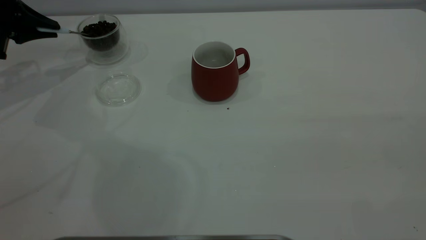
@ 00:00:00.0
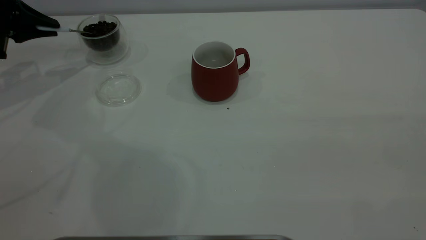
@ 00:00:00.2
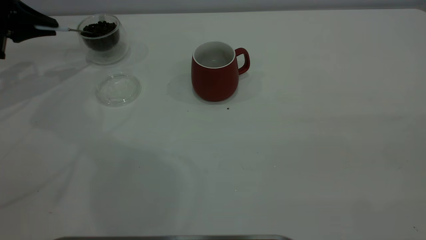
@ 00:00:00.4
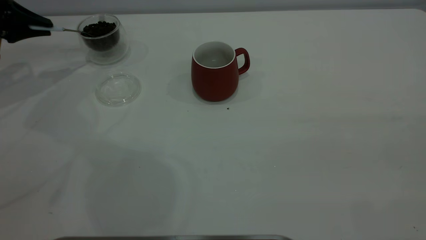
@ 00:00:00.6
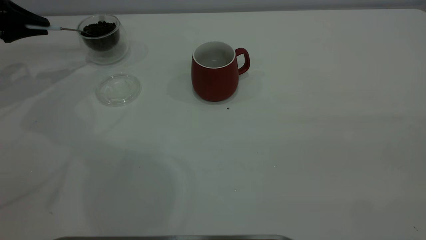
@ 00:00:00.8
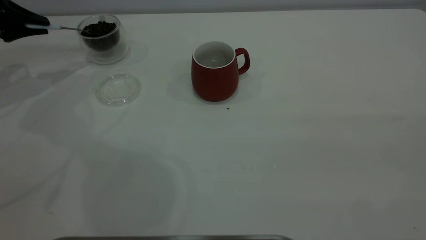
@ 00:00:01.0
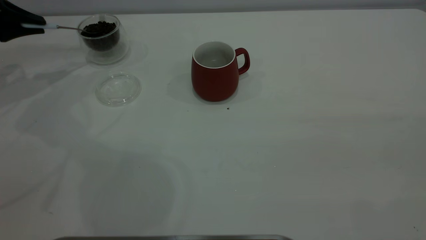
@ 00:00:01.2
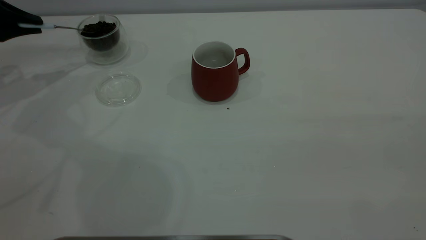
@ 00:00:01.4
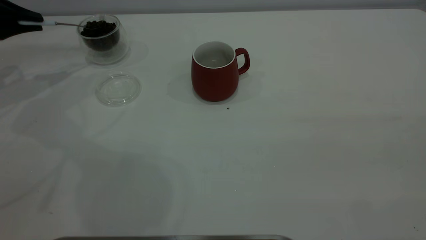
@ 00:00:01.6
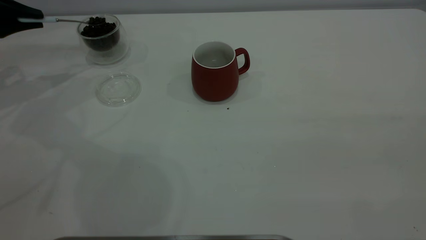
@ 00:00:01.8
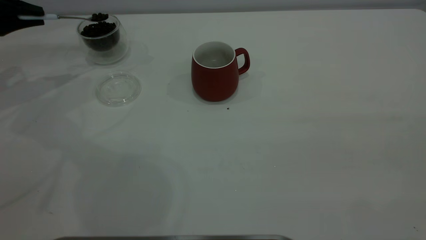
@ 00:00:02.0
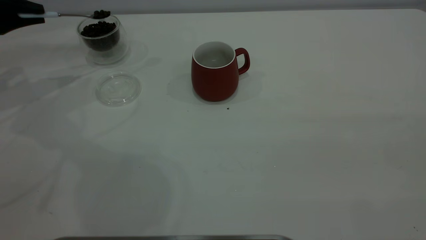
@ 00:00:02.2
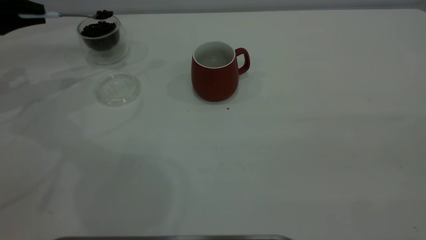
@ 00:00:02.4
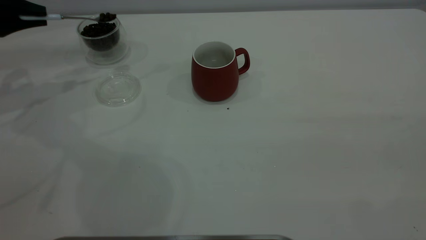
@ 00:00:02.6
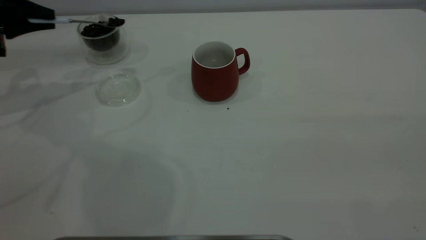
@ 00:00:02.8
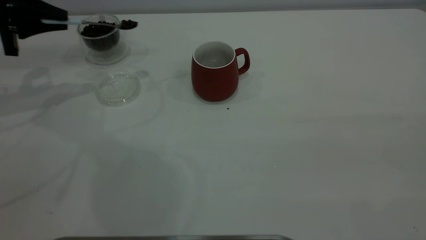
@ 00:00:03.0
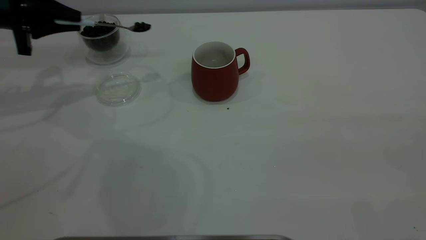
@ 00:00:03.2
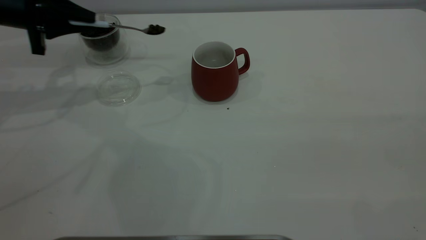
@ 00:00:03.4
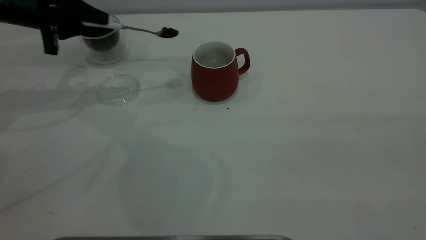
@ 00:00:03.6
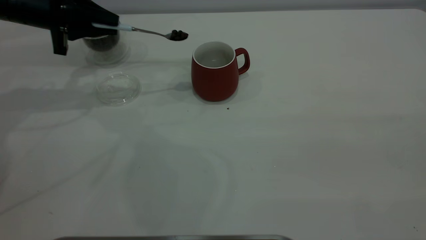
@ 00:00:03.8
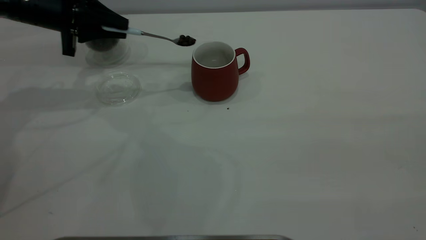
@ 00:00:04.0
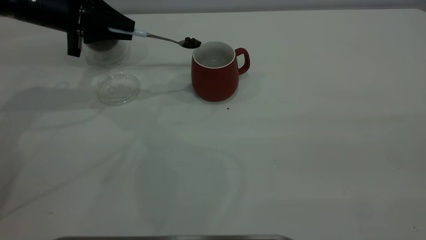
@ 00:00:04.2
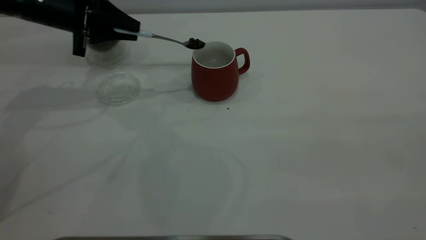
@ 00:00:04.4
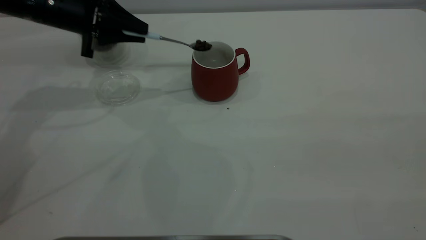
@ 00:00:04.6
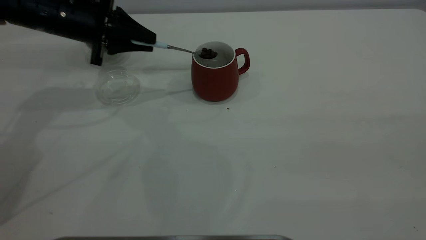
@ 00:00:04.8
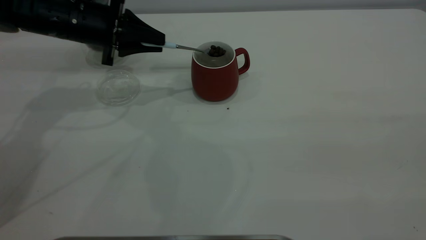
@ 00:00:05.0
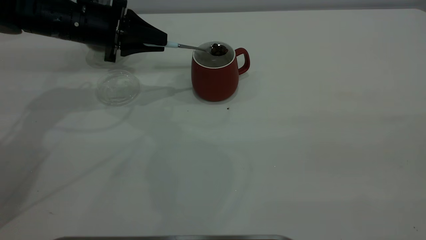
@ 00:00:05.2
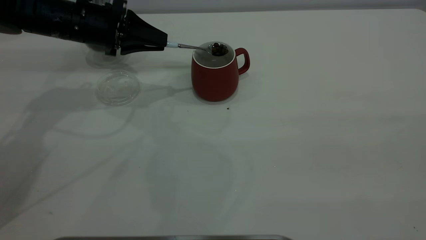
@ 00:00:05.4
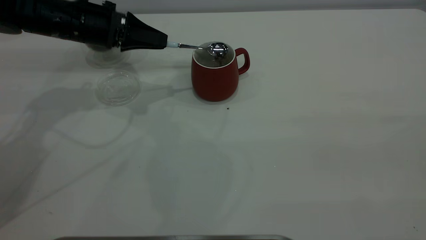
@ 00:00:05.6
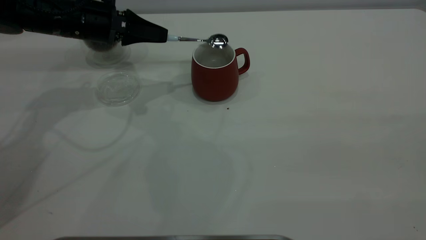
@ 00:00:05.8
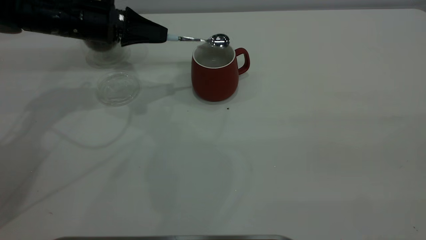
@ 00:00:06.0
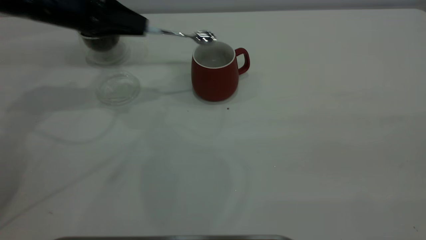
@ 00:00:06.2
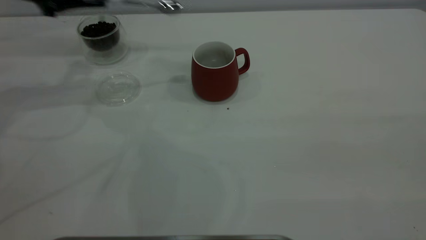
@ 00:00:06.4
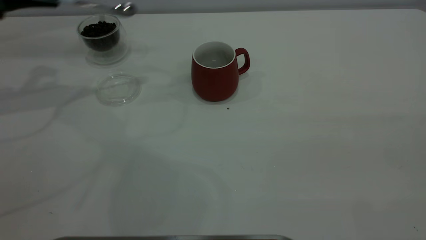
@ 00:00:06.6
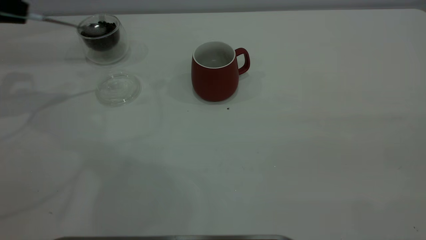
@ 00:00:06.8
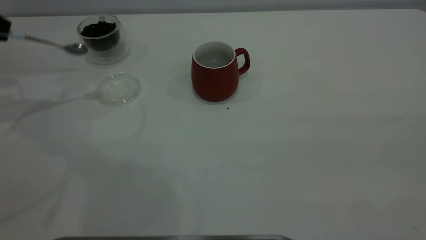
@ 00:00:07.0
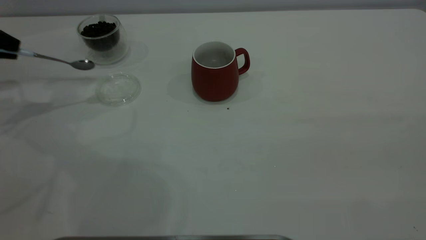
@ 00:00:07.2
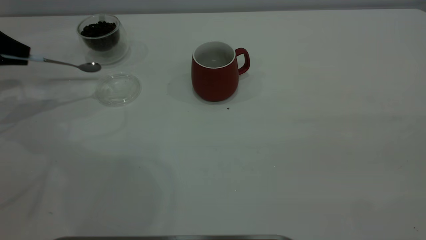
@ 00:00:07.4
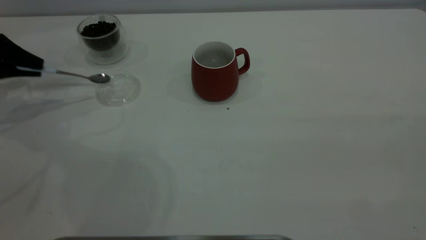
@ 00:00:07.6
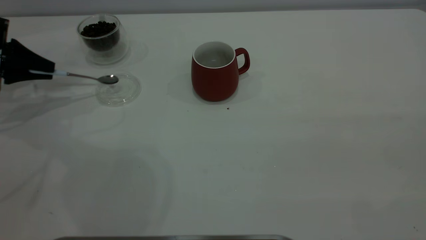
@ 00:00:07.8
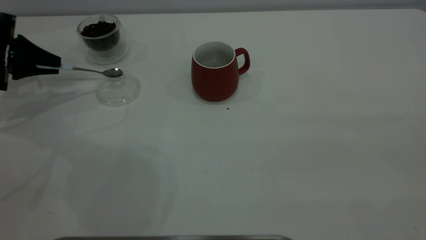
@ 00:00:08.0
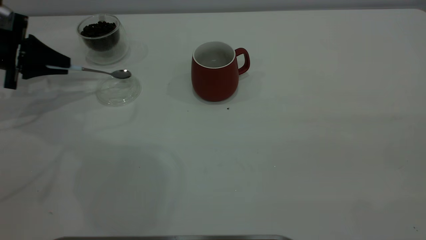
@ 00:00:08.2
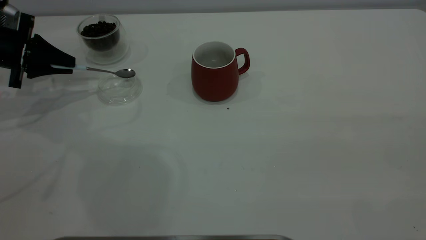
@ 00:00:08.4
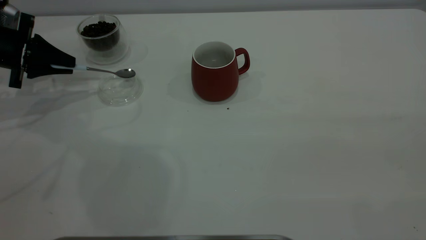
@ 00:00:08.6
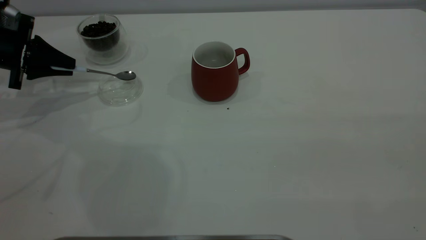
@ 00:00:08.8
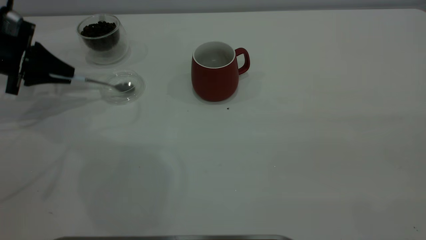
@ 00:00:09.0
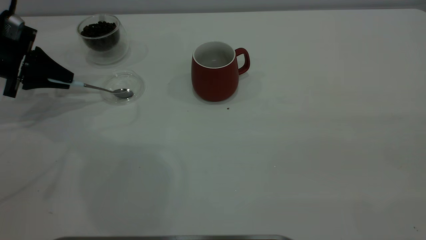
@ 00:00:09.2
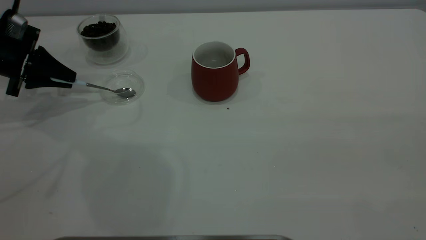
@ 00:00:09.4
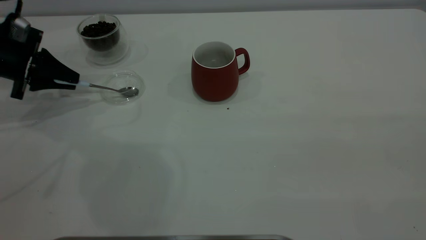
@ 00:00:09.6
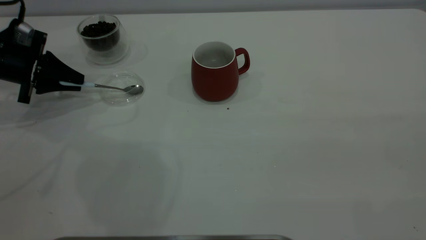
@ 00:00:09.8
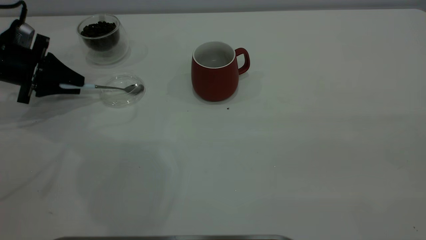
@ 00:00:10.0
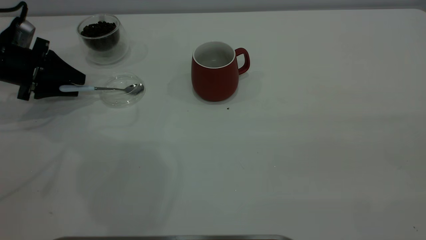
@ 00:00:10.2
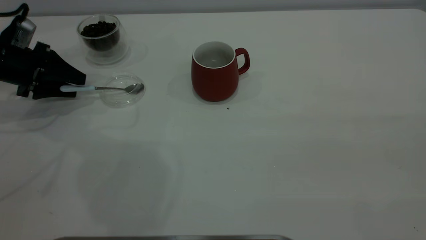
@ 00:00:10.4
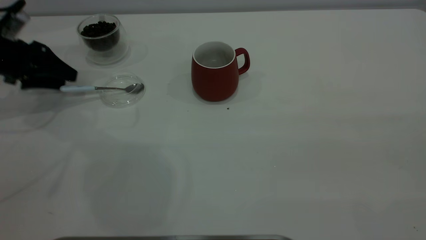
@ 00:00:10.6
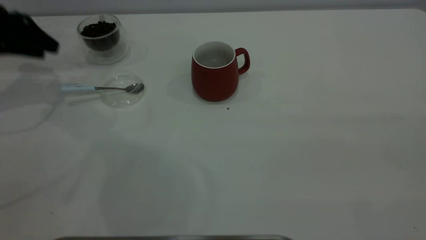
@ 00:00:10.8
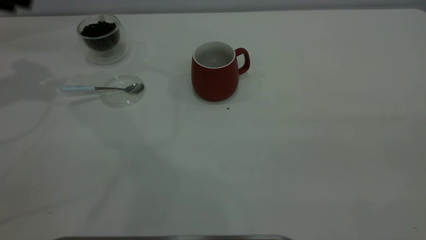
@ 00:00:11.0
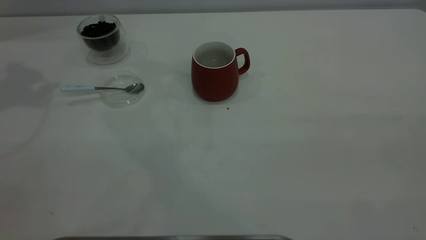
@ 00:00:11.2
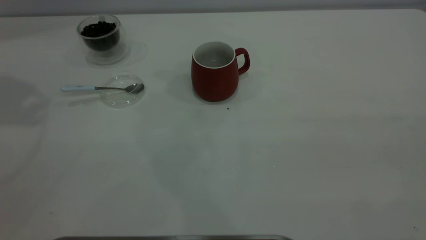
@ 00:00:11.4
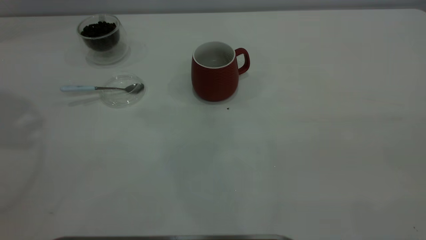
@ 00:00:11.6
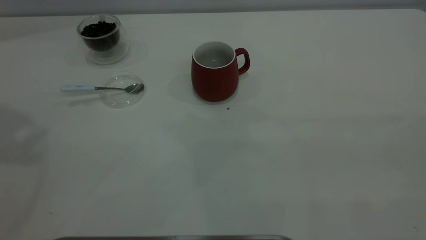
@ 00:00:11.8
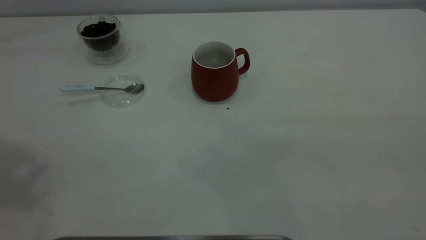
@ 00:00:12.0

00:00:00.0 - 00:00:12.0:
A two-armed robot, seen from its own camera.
Task of the whole recording: the right gripper place the red cup in the center of the table, the left gripper take the blue spoon from the cup lid and scoop out the coffee beans from the coffee cup and put them into the red cup, the left gripper put the spoon back into the cup lid.
Step, 00:00:00.0 - 00:00:06.2: Scoop a spoonful of beans into the cup.
Step, 00:00:06.4 - 00:00:10.6: Place the spoon back in its original place.
00:00:00.0 - 00:00:01.6: The grippers make only small movements.
00:00:01.6 - 00:00:03.0: The left gripper heads to the right, covering some 5 cm.
00:00:03.0 - 00:00:04.4: The left gripper goes approximately 10 cm to the right.
00:00:06.0 - 00:00:07.6: The left gripper is displaced to the left by about 20 cm.
00:00:07.6 - 00:00:09.0: The grippers stay close to where they were, moving slightly.
00:00:09.0 - 00:00:10.4: The left gripper opens.
00:00:10.4 - 00:00:12.0: The left gripper moves upward and backward, some 50 cm.

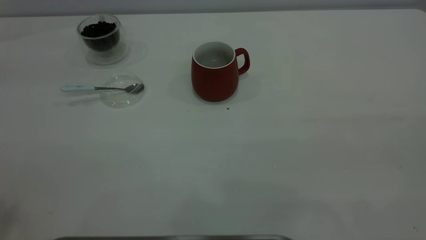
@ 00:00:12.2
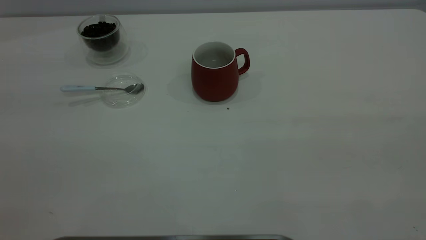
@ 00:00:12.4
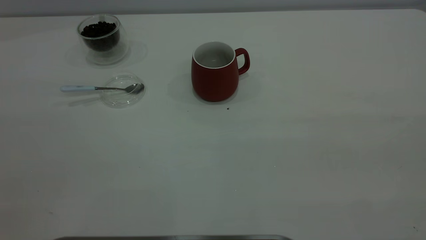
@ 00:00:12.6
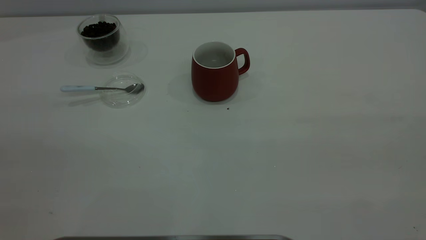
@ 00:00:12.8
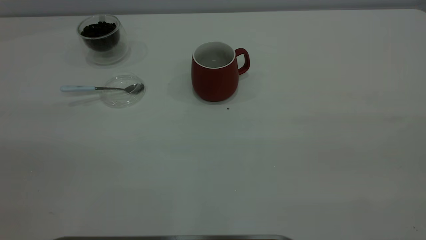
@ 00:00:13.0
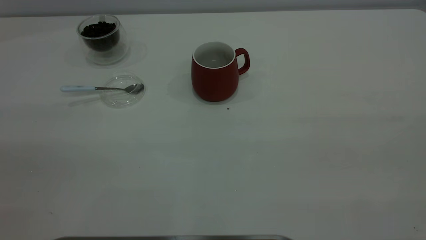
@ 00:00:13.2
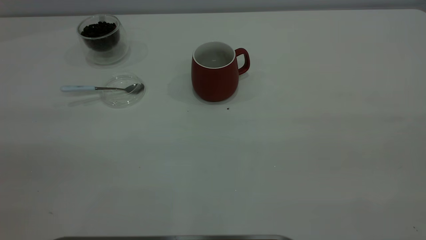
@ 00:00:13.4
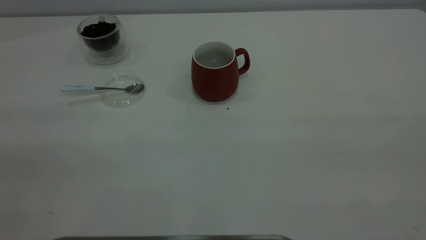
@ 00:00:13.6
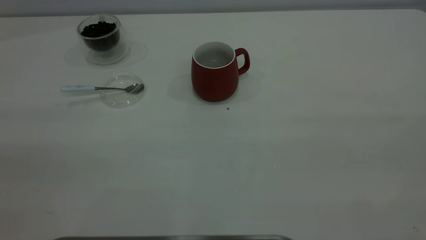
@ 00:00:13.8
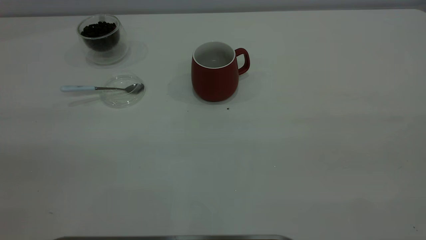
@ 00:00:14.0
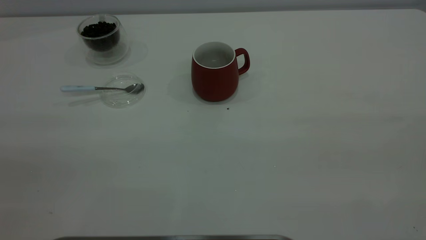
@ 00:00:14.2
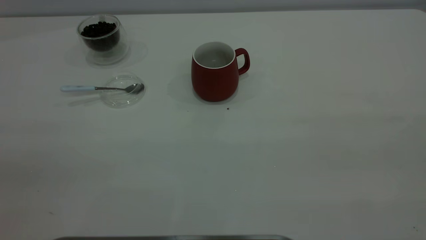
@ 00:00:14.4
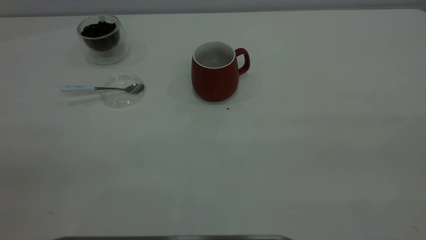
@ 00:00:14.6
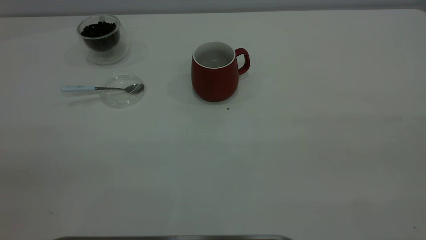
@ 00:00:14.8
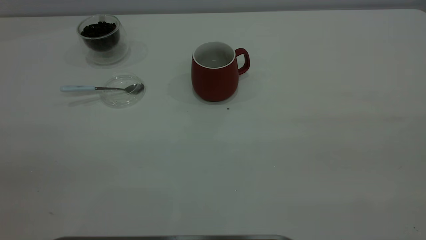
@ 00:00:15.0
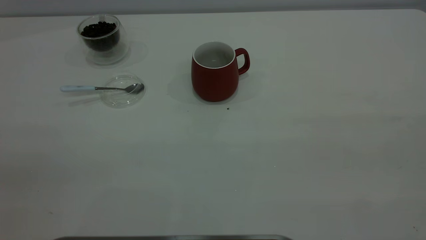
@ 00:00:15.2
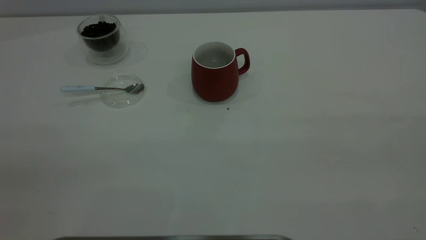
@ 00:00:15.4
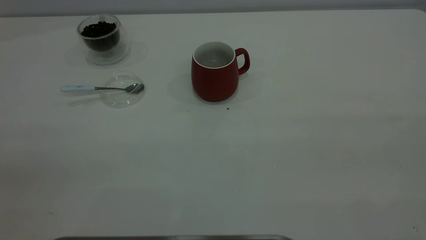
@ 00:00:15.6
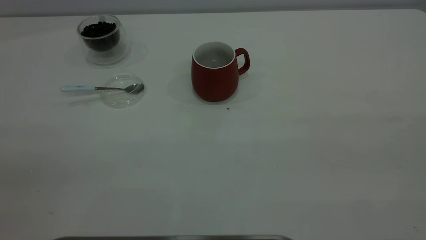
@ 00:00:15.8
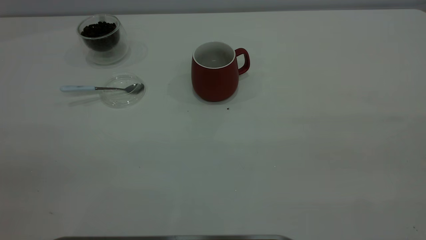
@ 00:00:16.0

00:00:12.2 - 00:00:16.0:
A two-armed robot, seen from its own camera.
Task of the whole recording: the right gripper place the red cup in the center of the table, the left gripper take the blue spoon from the cup lid and scoop out the coffee beans from the coffee cup and put them into the red cup, the left gripper put the spoon back into the cup lid.
00:00:14.8 - 00:00:16.0: Both grippers stay put.
